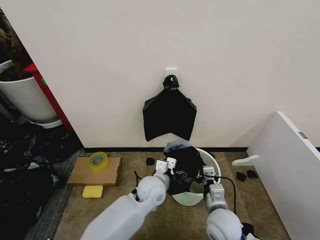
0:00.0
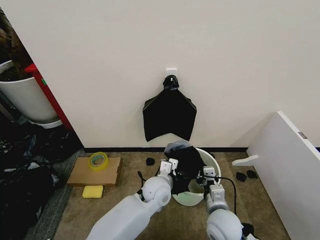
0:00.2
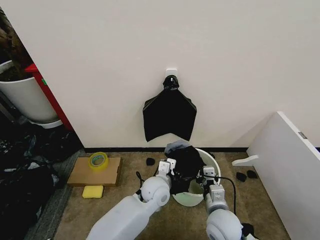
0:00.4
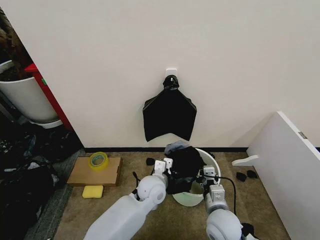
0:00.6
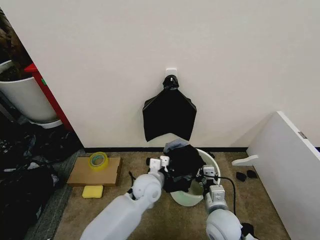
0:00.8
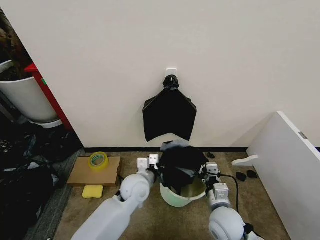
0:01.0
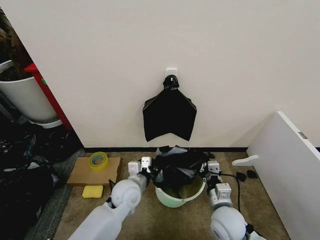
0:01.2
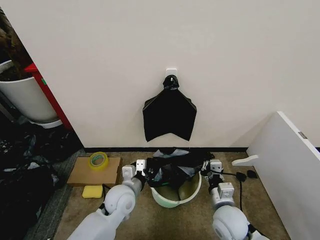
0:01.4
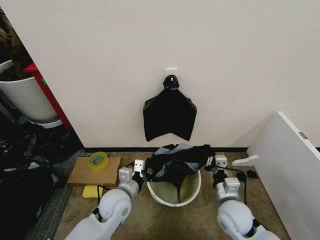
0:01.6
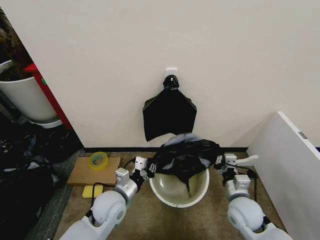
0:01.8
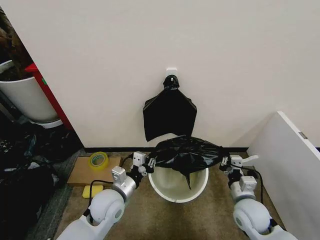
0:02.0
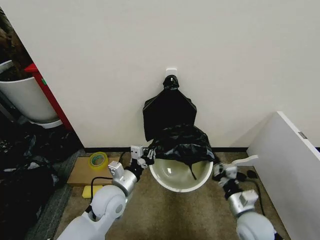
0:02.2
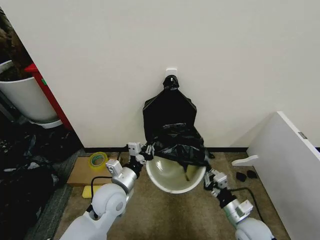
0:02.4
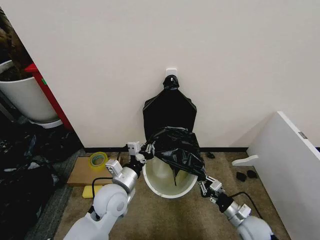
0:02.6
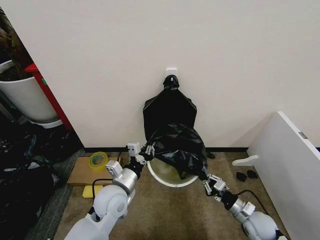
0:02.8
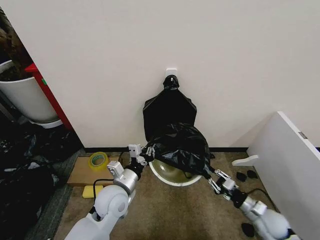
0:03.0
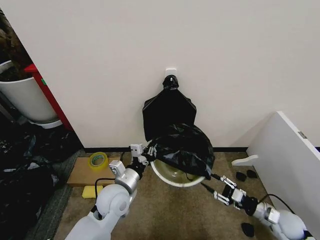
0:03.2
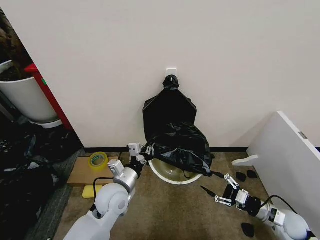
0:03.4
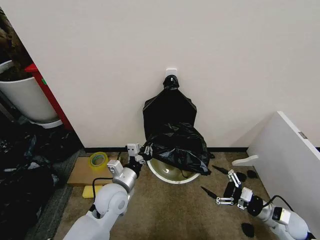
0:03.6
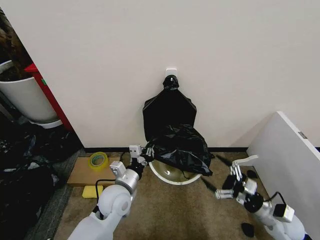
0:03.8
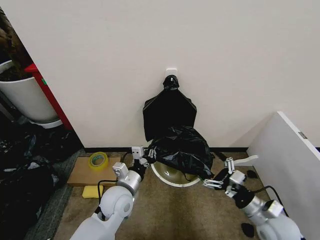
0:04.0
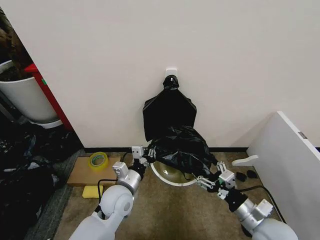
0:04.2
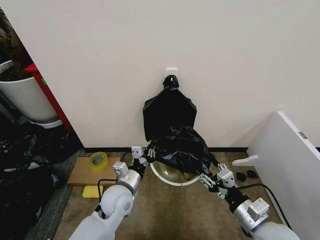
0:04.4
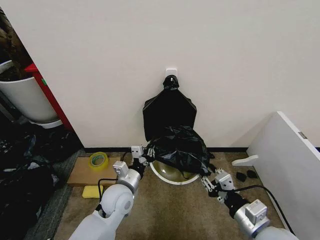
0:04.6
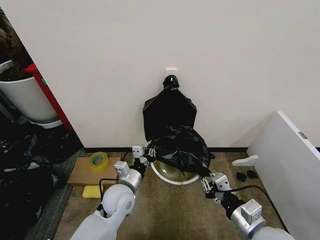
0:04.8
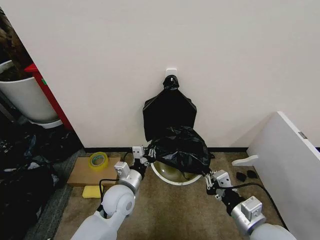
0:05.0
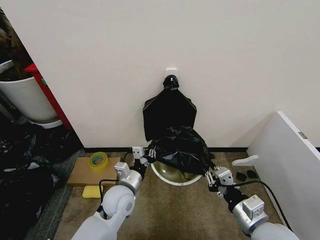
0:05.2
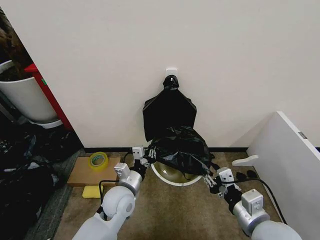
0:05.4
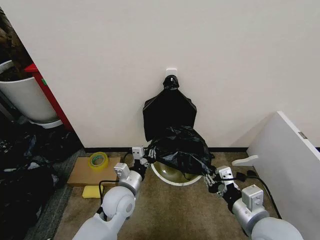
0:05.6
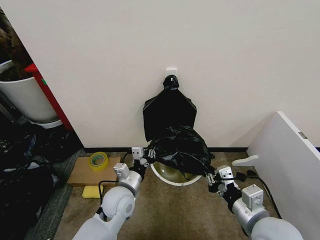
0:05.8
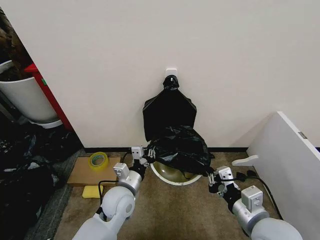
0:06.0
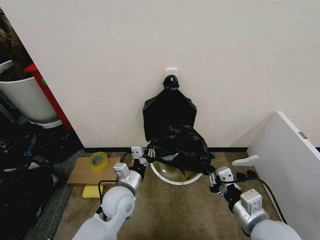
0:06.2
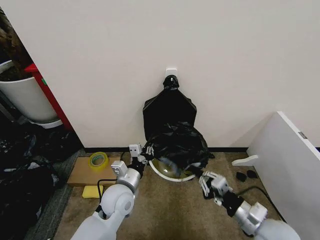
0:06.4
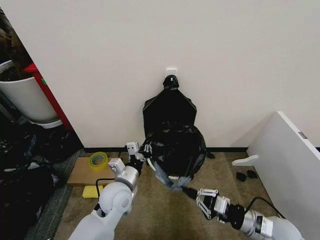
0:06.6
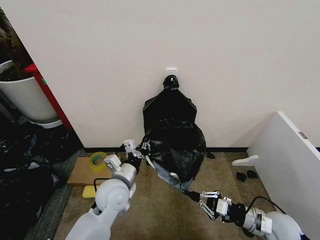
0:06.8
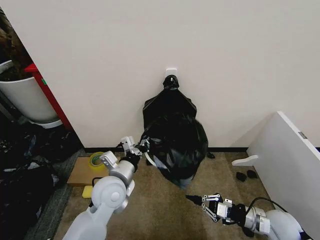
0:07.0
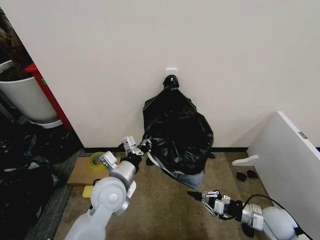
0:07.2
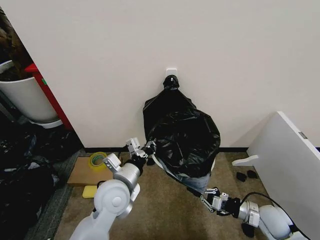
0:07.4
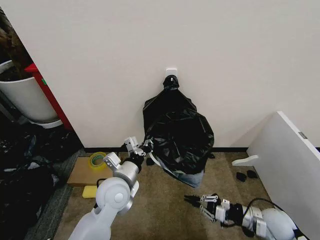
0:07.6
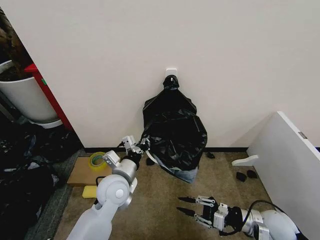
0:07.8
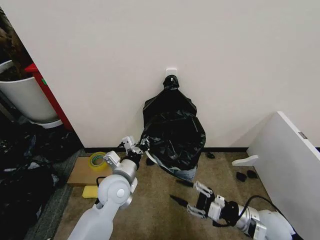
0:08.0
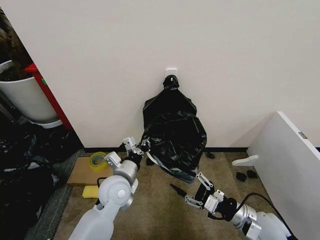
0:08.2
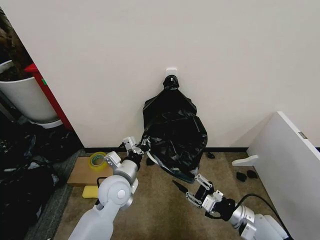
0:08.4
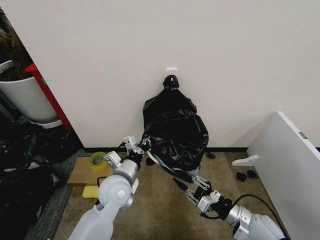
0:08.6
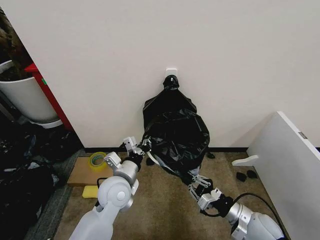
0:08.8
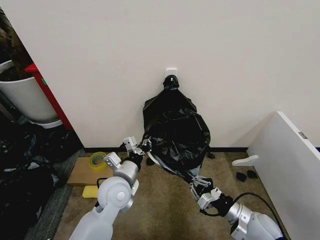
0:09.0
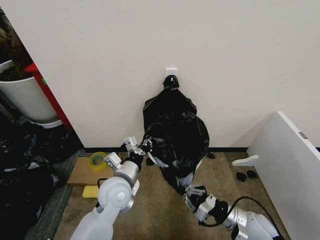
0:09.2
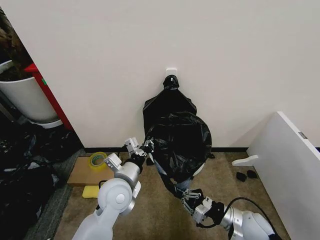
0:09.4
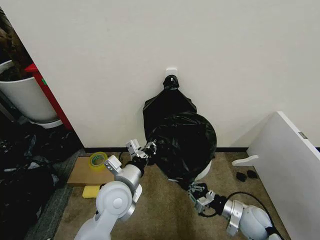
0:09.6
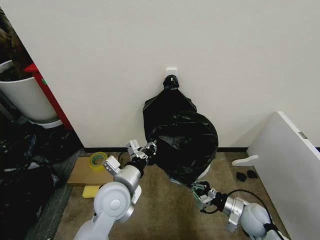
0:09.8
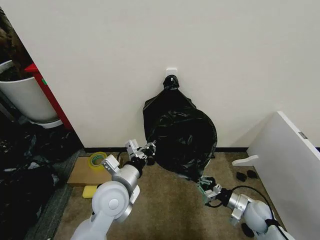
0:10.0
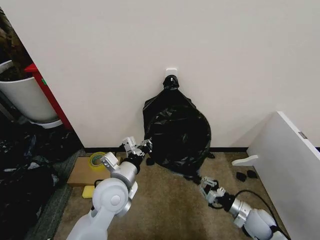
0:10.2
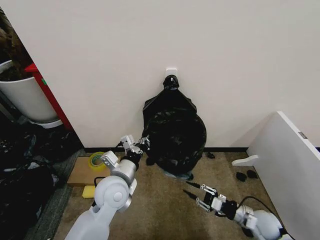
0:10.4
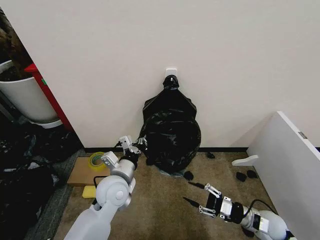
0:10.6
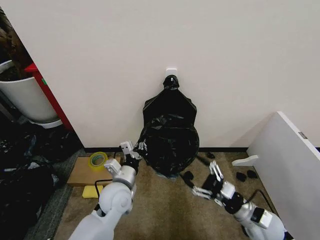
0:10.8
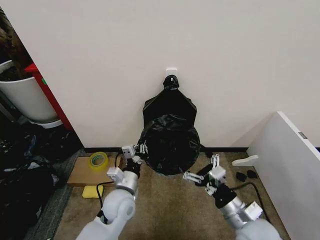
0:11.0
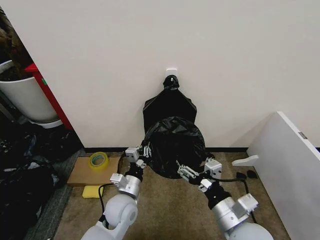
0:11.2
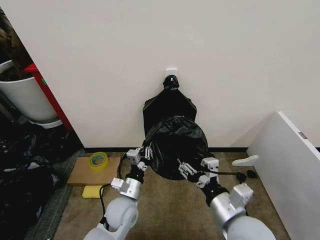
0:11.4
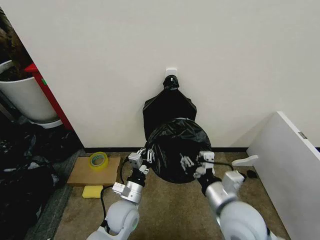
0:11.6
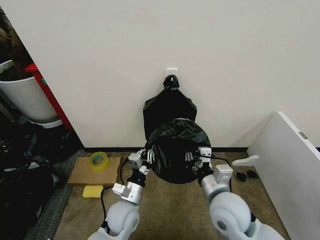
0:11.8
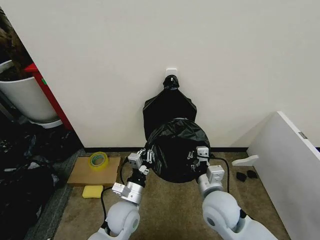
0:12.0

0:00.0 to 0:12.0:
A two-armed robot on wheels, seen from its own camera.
Task of the whole recording: Place the garbage bag over the trash bin.
0:00.0 to 0:01.6: The left gripper heads to the left, covering some 10 cm, and closes up; the right gripper moves roughly 5 cm.
0:01.6 to 0:03.0: The right gripper travels to the right and downward by some 15 cm.
0:03.0 to 0:04.4: The right gripper travels upward, to the left and backward by some 20 cm, and opens up.
0:04.4 to 0:06.0: The right gripper heads upward, covering about 5 cm, and closes its fingers.
0:06.0 to 0:07.6: The right gripper shifts some 20 cm downward, to the right and forward. The left gripper travels upward by approximately 5 cm.
0:07.6 to 0:09.0: The right gripper heads to the left, covering approximately 10 cm, and opens, then closes again.
0:09.0 to 0:10.4: The right gripper moves downward and to the right, about 10 cm.
0:10.4 to 0:12.0: The right gripper travels to the left and upward by approximately 25 cm, and opens and closes again. The left gripper goes roughly 10 cm downward.

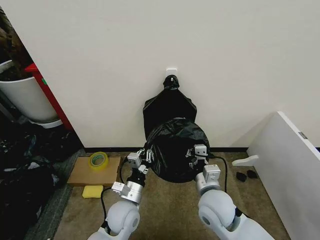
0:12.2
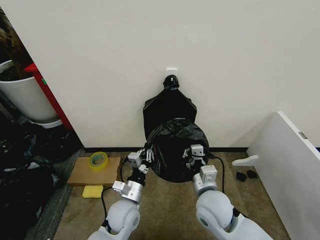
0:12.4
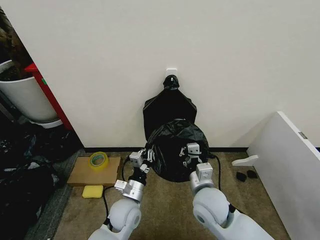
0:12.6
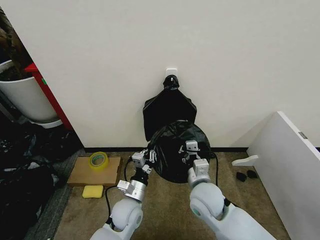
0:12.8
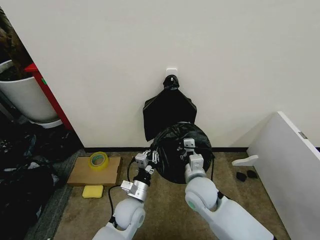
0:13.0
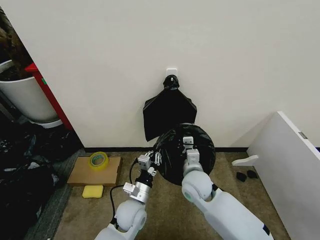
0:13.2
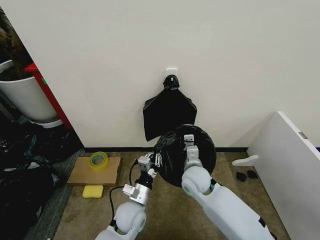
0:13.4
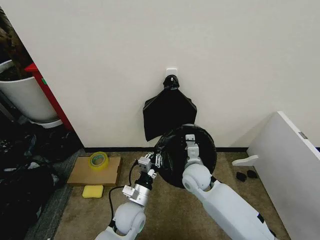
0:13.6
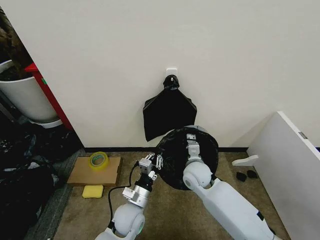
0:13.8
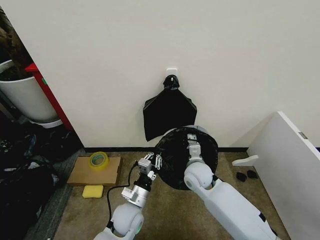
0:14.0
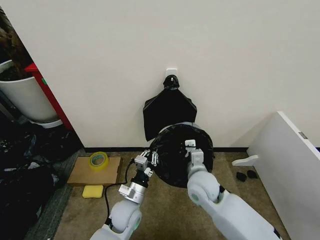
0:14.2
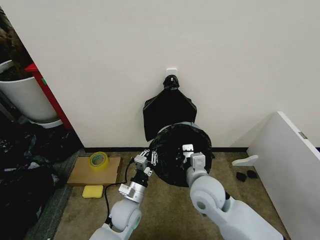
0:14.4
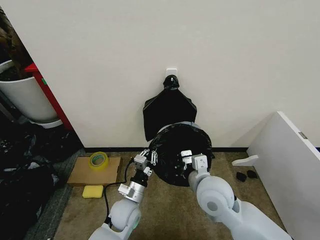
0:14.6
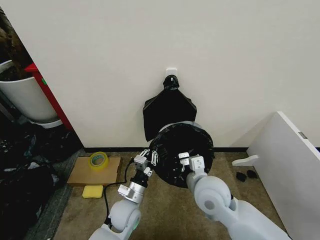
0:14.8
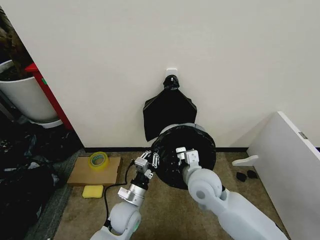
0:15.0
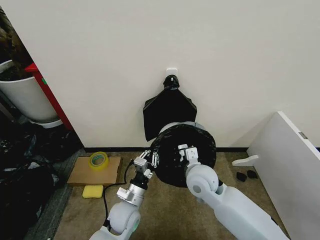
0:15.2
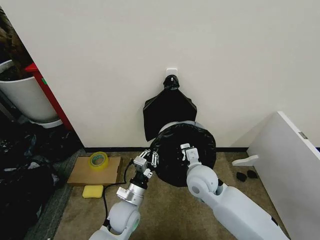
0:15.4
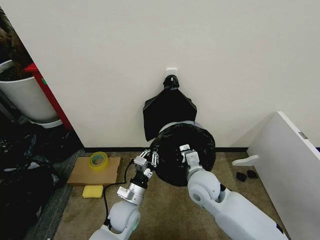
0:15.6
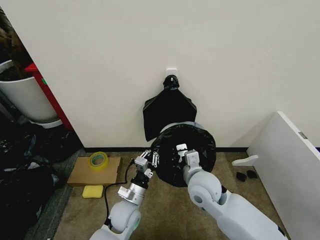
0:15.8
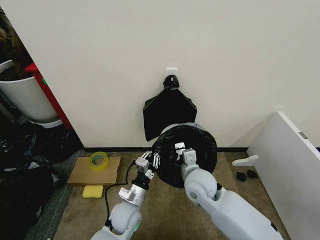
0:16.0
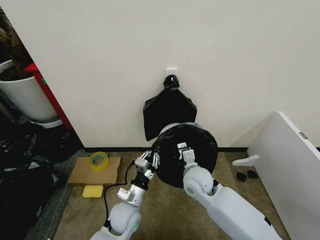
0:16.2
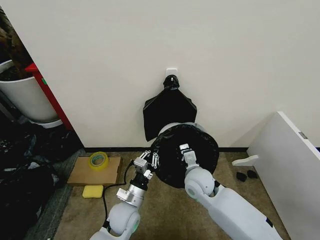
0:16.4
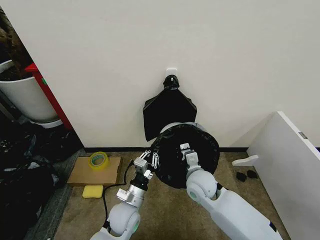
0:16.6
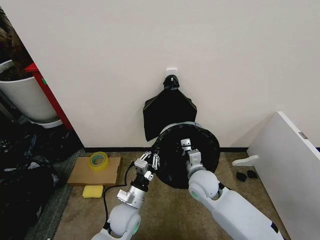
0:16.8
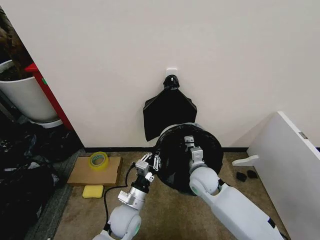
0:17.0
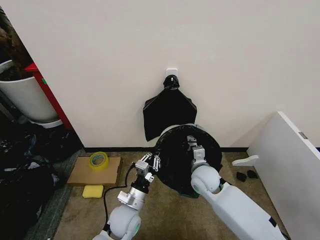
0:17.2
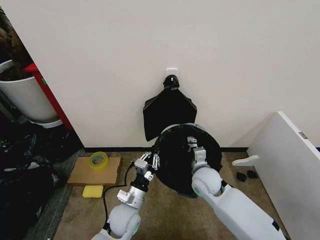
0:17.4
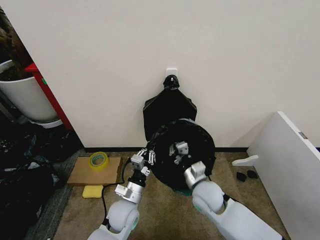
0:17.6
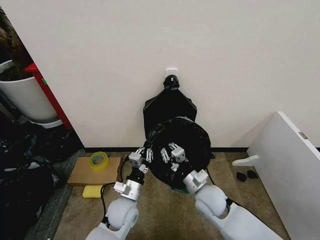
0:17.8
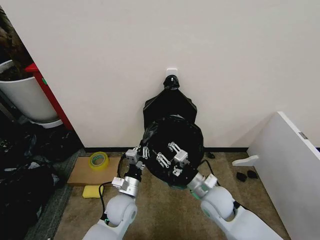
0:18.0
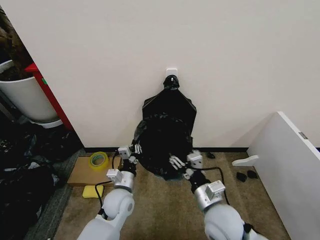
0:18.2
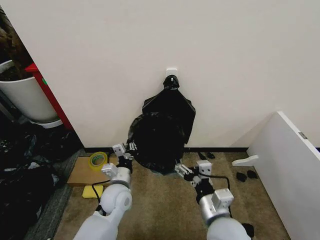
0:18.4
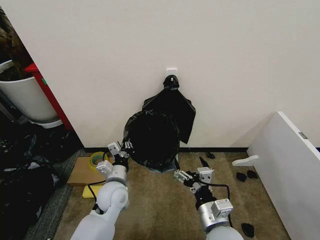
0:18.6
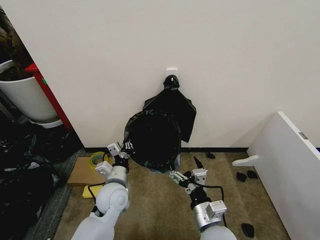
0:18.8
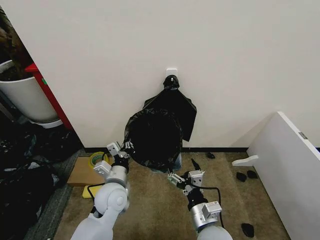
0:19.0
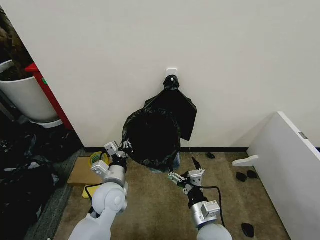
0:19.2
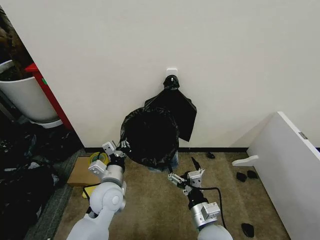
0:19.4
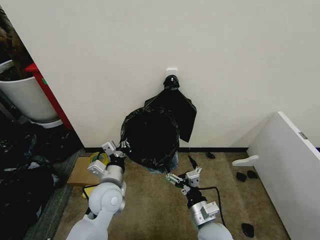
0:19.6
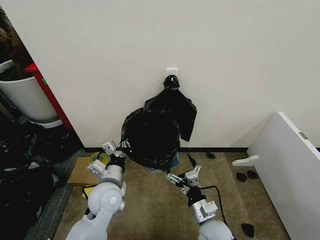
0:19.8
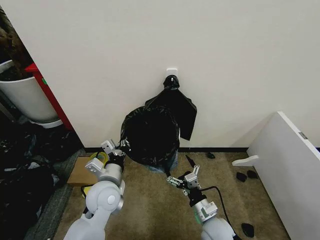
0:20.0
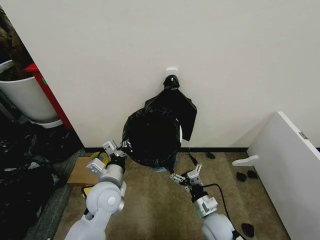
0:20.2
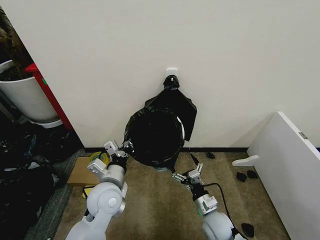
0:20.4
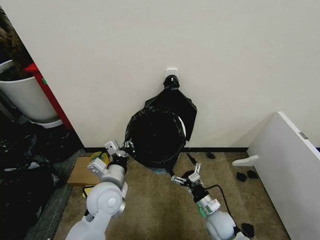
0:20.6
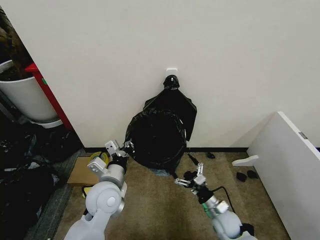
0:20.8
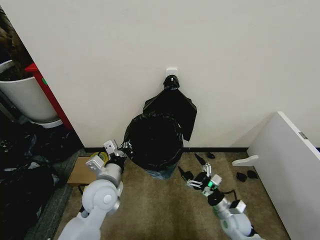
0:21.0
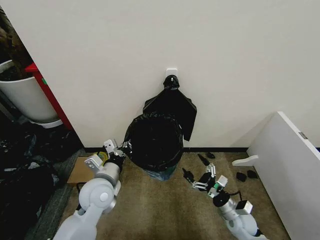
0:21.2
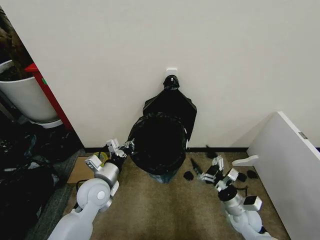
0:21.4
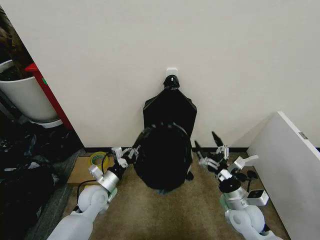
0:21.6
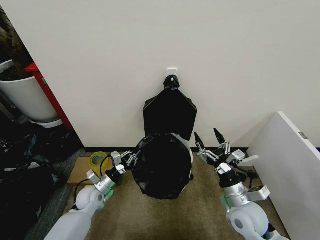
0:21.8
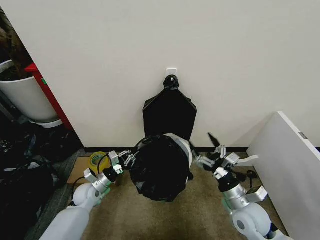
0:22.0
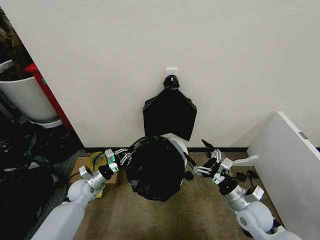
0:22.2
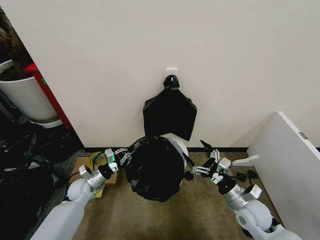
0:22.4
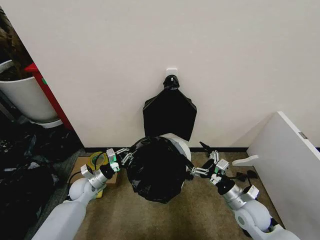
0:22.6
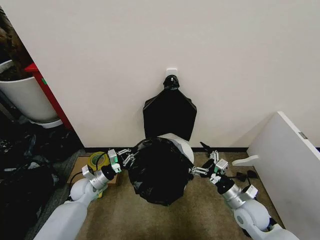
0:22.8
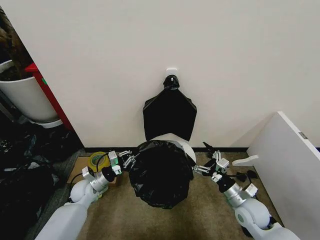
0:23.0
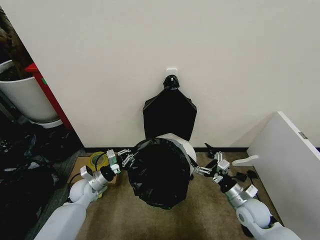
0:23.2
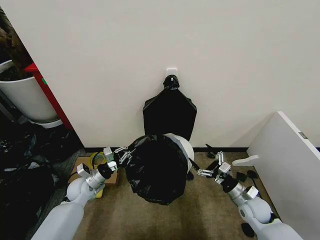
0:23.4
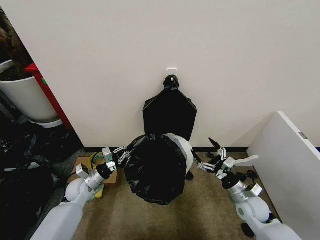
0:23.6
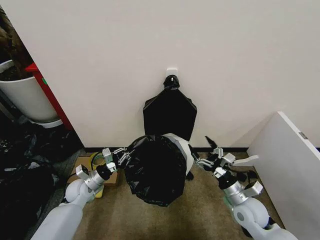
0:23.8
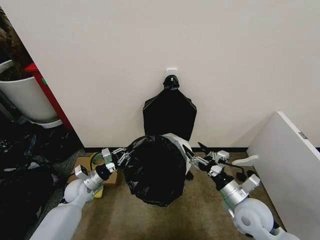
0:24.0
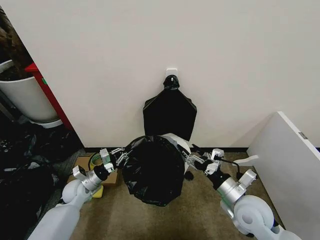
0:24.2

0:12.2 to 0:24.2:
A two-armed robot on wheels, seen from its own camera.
Task of the whole recording: Place the garbage bag over the trash bin.
0:12.2 to 0:13.8: The right gripper goes approximately 10 cm forward.
0:13.8 to 0:15.2: The right gripper goes some 10 cm upward and backward.
0:15.2 to 0:16.6: The right gripper ends up about 5 cm from where it was.
0:16.6 to 0:18.2: The right gripper goes roughly 10 cm backward, and opens.
0:18.2 to 0:19.8: The right gripper travels downward by approximately 5 cm, and opens up; the left gripper travels upward by roughly 10 cm.
0:19.8 to 0:21.2: The right gripper heads to the right, downward and forward, covering some 15 cm.
0:21.2 to 0:22.6: The right gripper shifts roughly 10 cm upward, while the left gripper travels downward, to the left and forward by about 20 cm.
0:22.6 to 0:24.2: The right gripper shifts approximately 10 cm upward.
